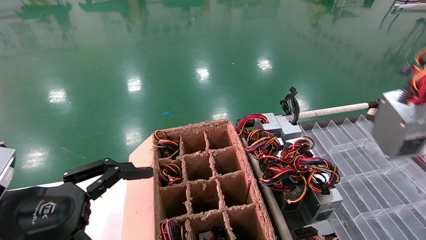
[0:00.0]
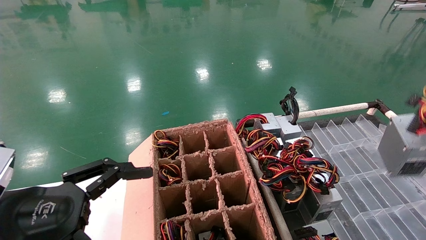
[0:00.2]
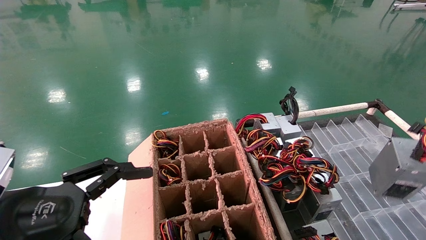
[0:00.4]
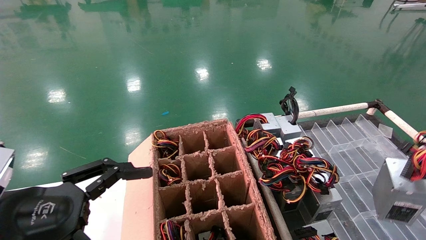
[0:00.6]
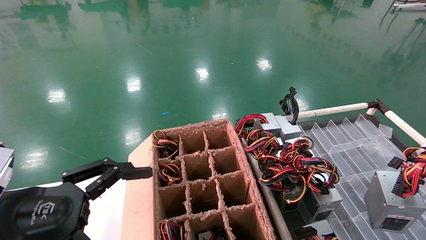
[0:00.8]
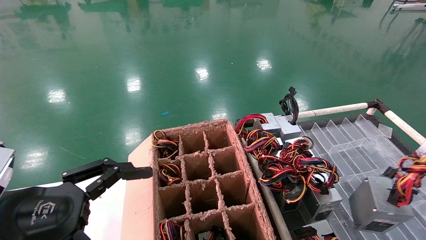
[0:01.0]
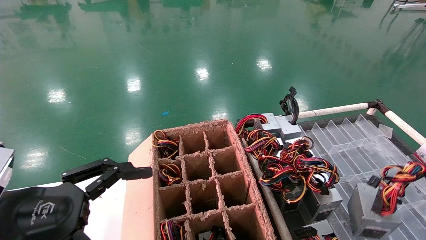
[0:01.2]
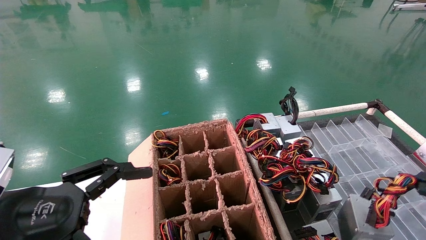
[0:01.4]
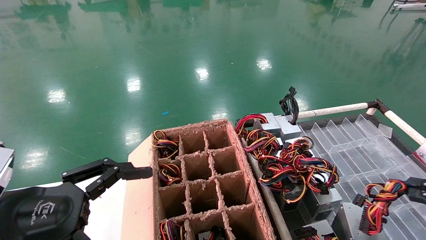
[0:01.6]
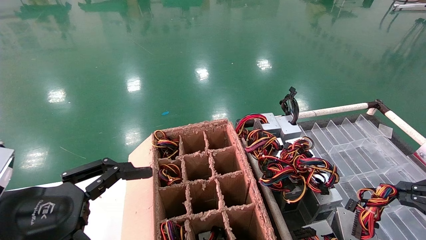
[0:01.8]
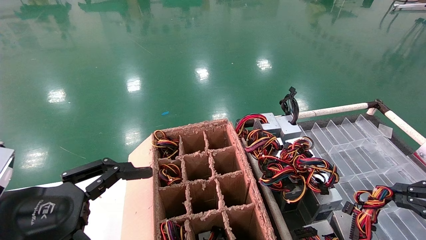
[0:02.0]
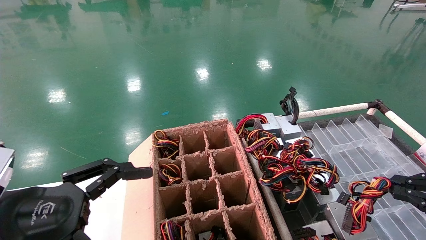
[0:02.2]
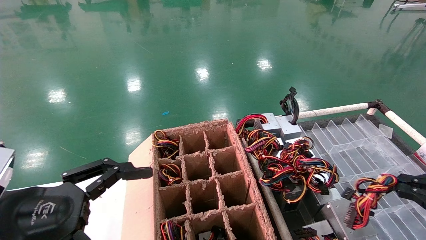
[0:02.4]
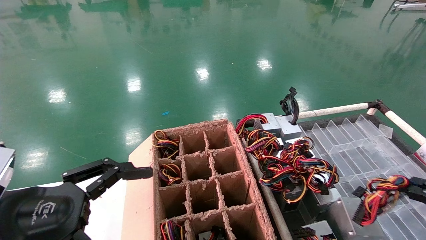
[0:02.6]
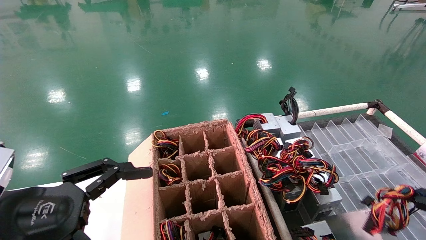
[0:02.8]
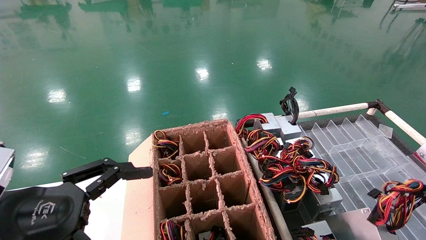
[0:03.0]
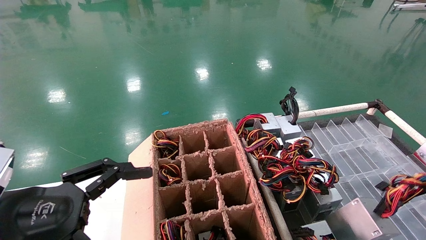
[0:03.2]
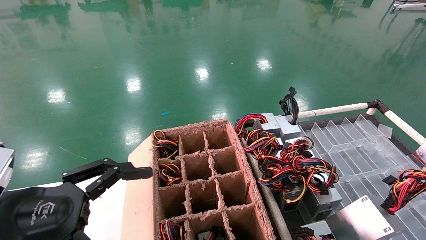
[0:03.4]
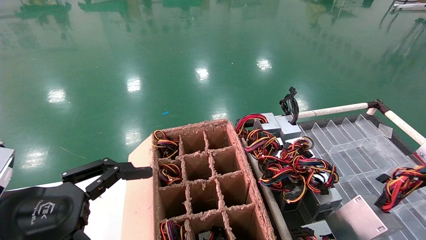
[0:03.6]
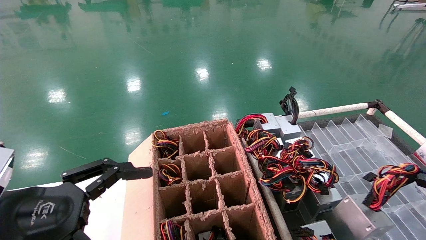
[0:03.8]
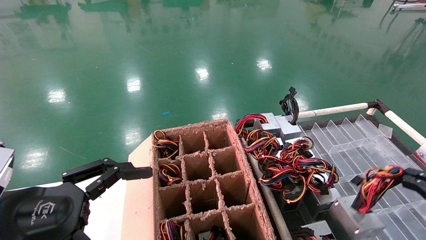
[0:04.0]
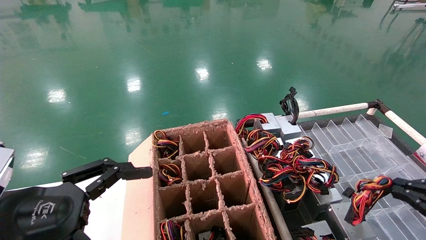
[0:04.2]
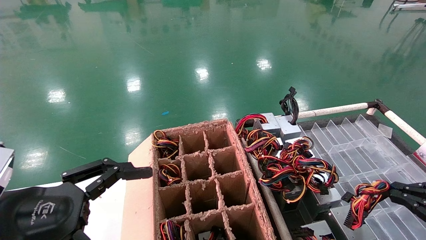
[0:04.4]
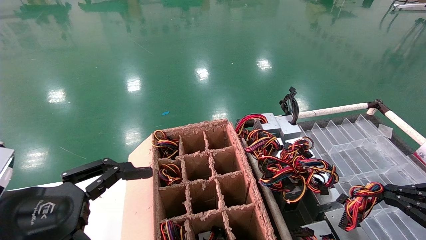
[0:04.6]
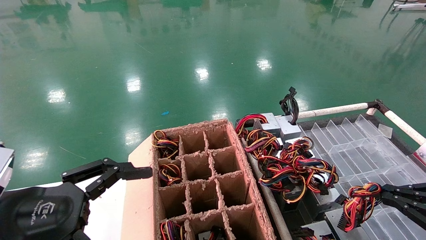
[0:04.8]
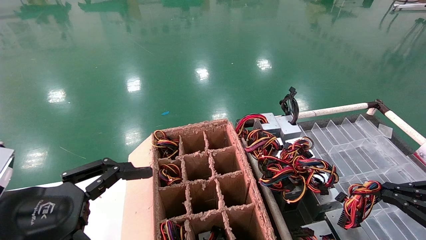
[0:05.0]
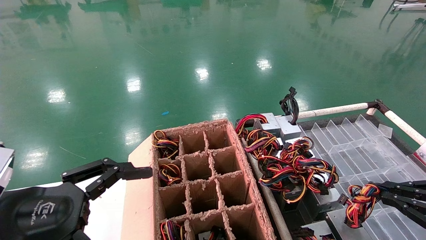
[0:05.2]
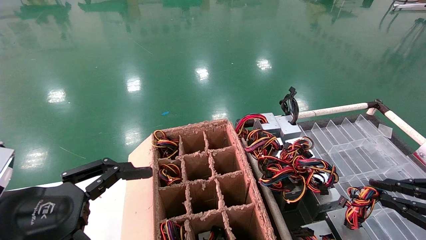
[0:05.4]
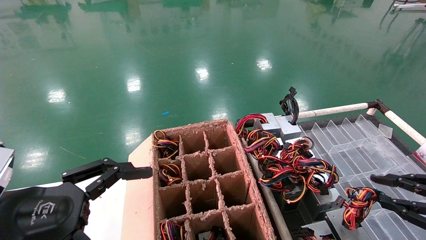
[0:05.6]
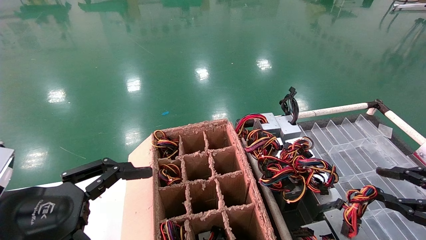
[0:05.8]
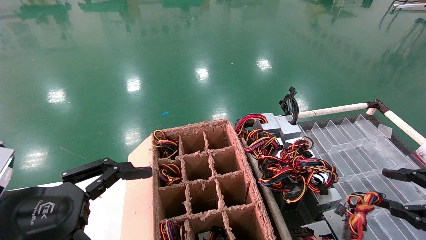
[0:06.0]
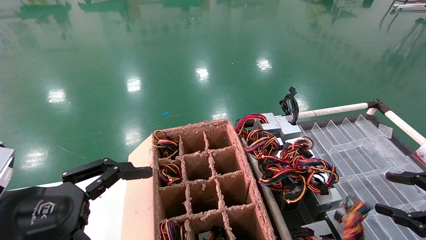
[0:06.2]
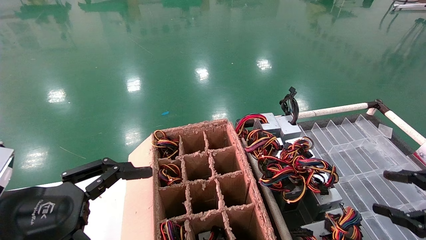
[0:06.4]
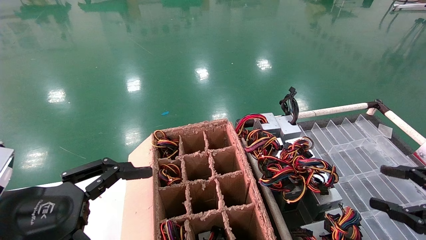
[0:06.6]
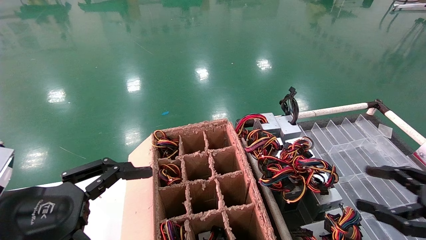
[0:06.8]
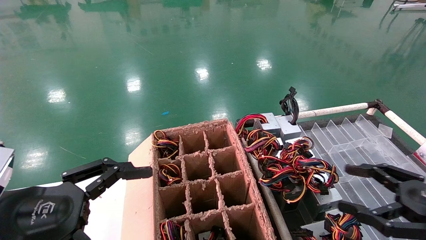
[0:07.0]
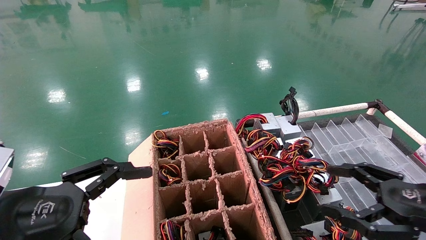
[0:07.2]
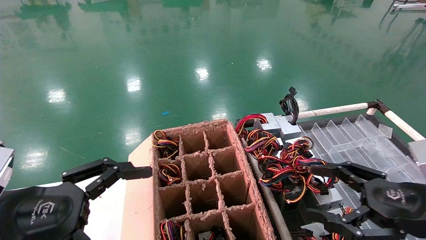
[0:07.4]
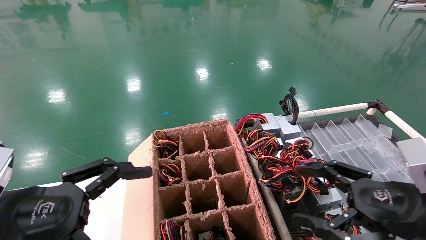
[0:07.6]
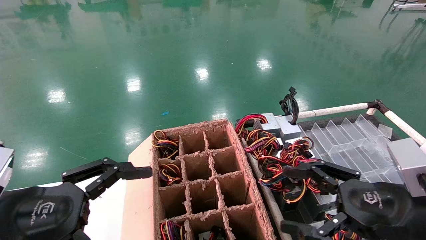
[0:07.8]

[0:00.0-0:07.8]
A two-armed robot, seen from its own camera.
Step, 0:00.0 to 0:05.2: Place the power supply on the operating table.
0:00.0 to 0:01.6: The right gripper is displaced downward by roughly 15 cm.
0:01.6 to 0:03.2: The right gripper travels to the right by some 5 cm.
0:03.2 to 0:04.6: The right gripper ends up roughly 5 cm from where it was.
0:04.6 to 0:06.2: The right gripper opens its fingers.
0:06.2 to 0:07.8: The right gripper travels to the left by roughly 15 cm.
